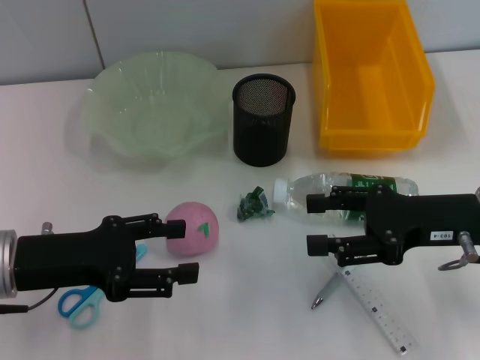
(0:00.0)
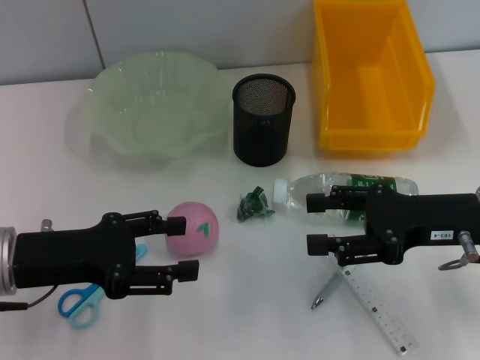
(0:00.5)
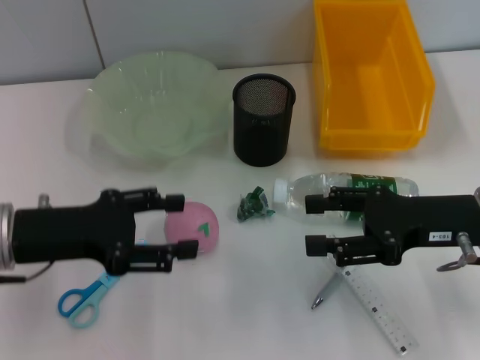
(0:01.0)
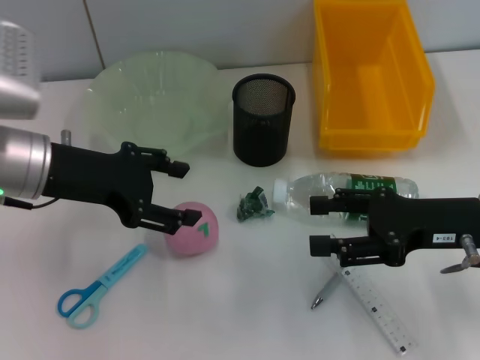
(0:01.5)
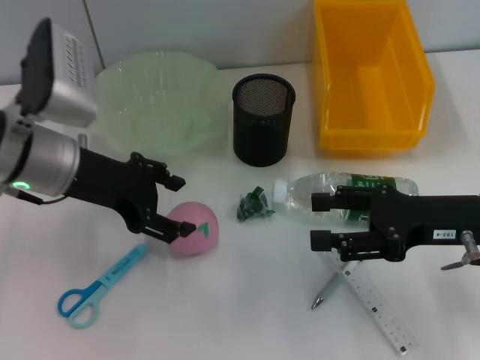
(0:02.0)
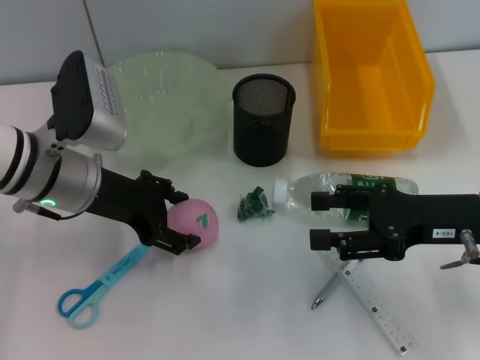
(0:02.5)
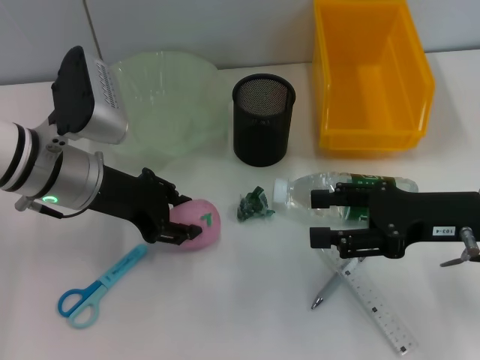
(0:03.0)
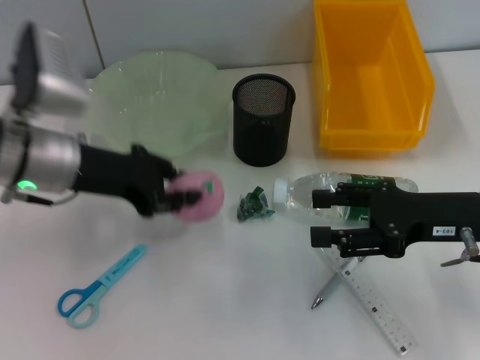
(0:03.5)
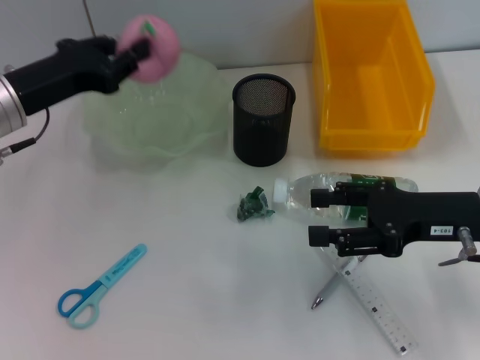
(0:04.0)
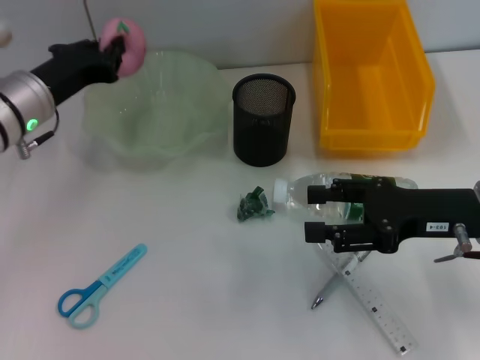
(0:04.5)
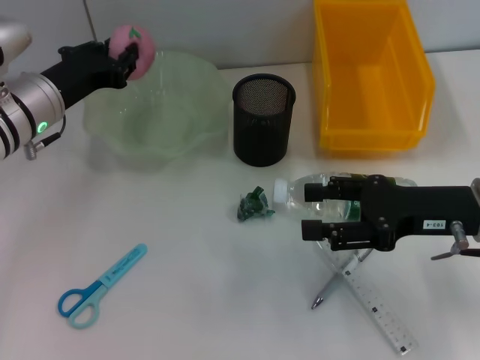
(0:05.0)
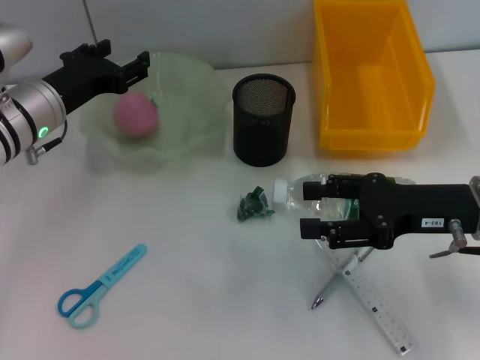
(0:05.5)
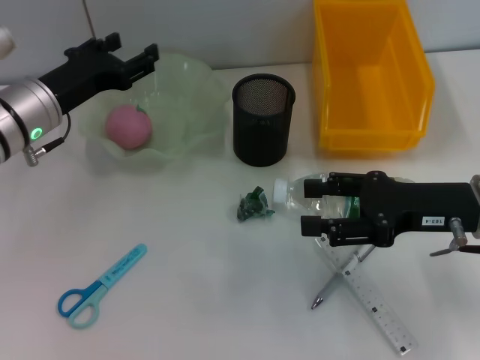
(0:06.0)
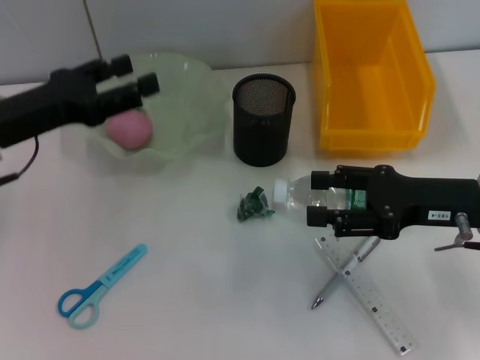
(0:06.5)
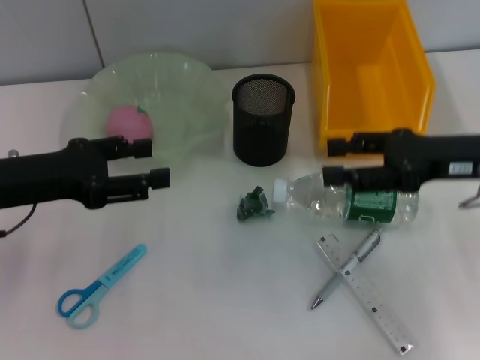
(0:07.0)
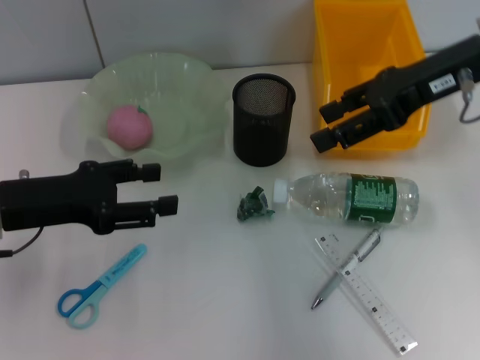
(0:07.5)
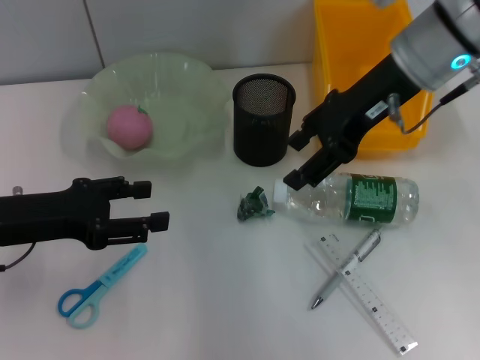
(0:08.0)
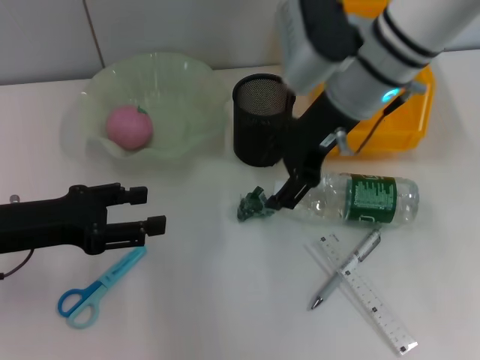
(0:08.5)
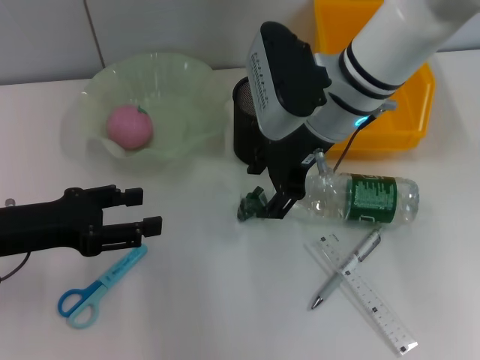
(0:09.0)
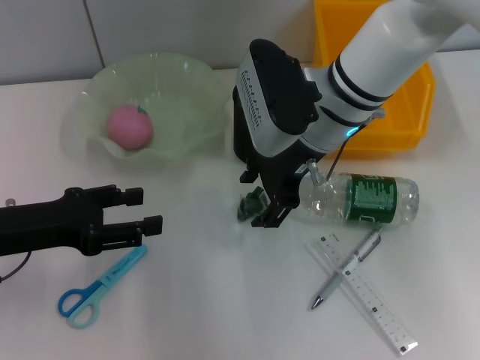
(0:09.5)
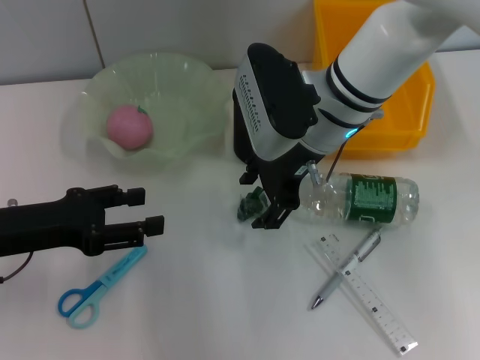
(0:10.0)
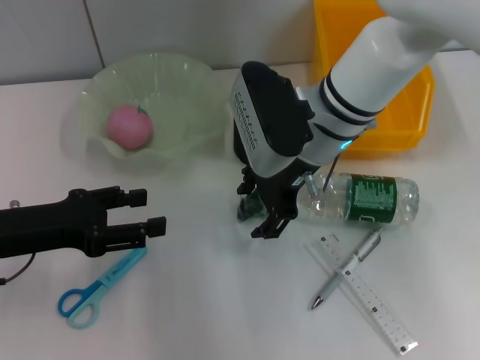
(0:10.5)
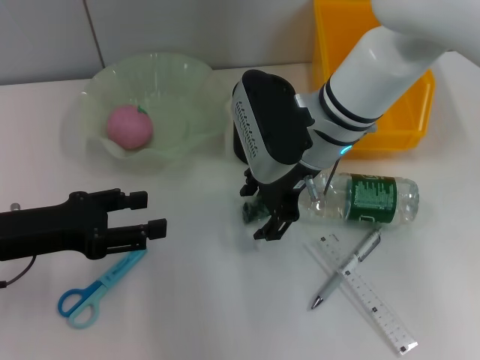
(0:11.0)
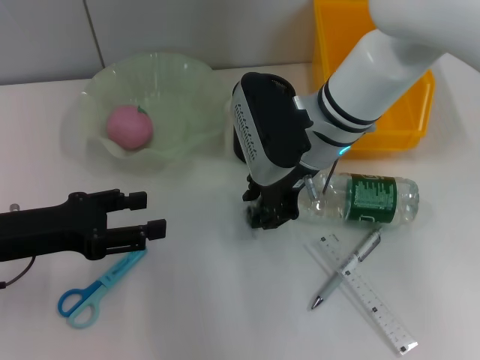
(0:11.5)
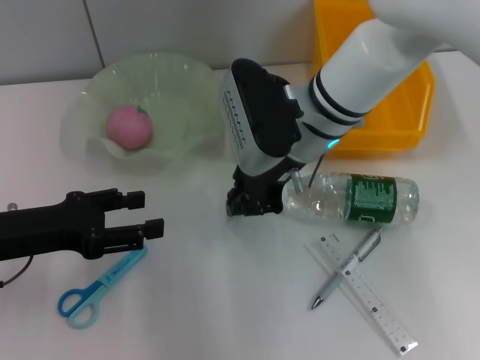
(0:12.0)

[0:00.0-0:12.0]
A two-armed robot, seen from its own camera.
Step, 0:00.0 to 0:03.0: Grab the peach with the left hand.
Step, 0:03.5 to 0:06.0: Place the peach into the fruit bowl with the left hand.
Step, 0:06.5 to 0:11.5: Grab the plastic with the right hand.
0:00.0 to 0:02.0: The left gripper moves forward, to the right and upward, approximately 10 cm.
0:02.0 to 0:04.0: The left gripper moves some 5 cm, and closes its fingers.
0:04.0 to 0:06.0: The left gripper opens its fingers.
0:06.0 to 0:08.0: The right gripper is displaced upward, forward and to the left by about 20 cm. Meanwhile the left gripper is displaced backward by about 10 cm.
0:08.0 to 0:10.0: The right gripper is displaced to the left and downward by about 10 cm.
0:10.0 to 0:12.0: The right gripper closes its fingers.

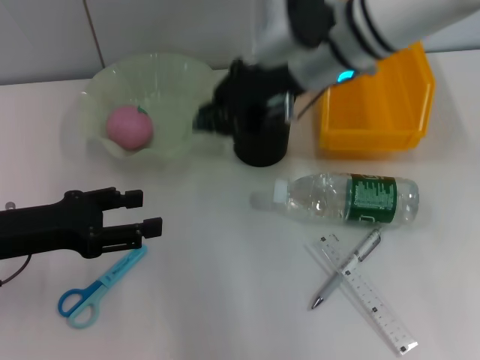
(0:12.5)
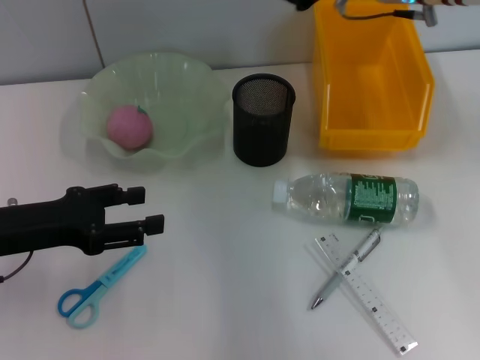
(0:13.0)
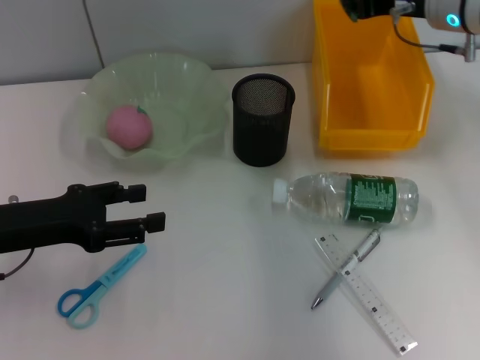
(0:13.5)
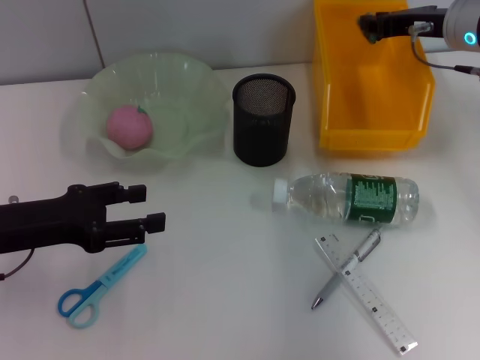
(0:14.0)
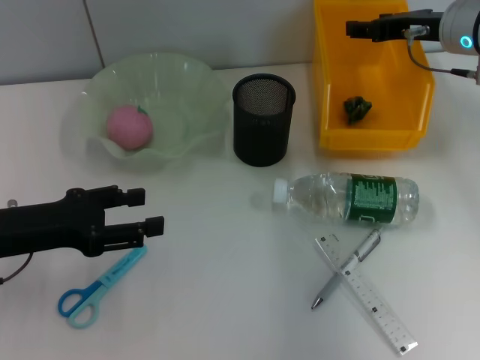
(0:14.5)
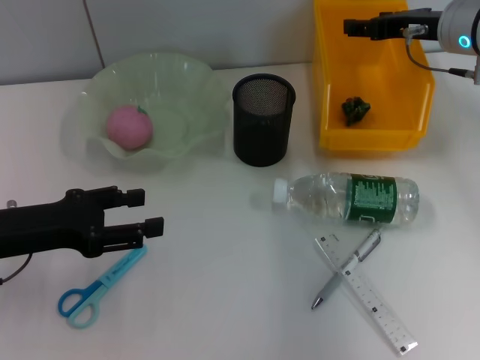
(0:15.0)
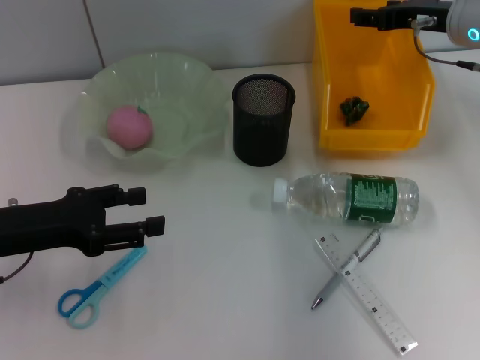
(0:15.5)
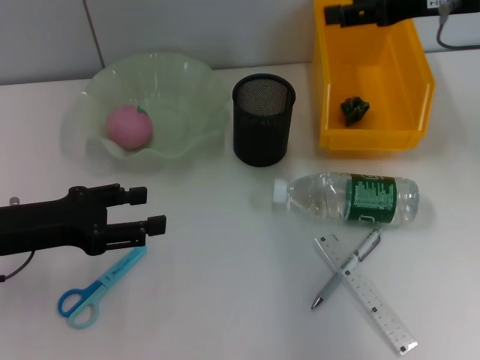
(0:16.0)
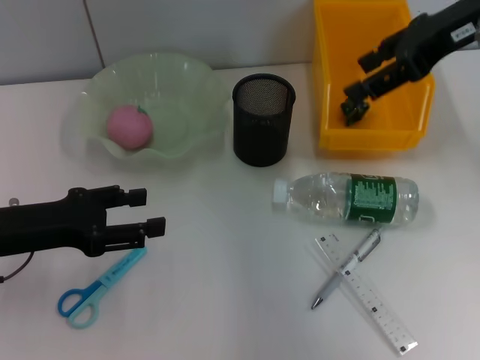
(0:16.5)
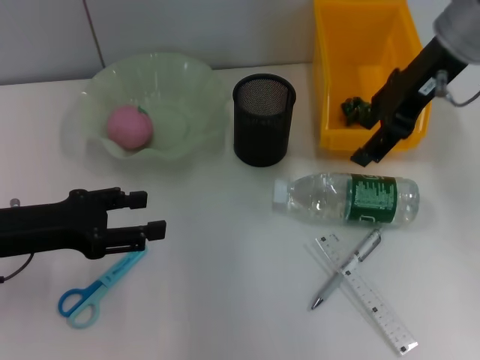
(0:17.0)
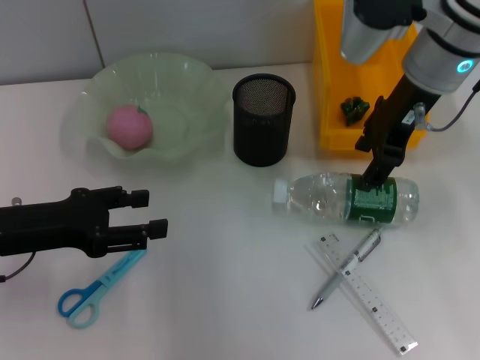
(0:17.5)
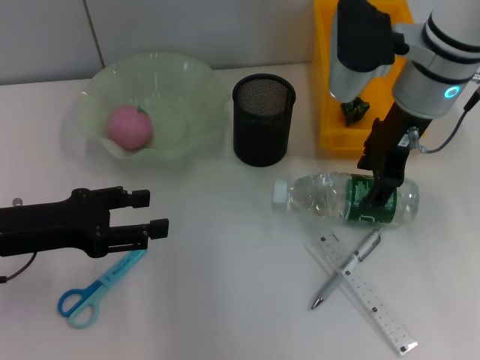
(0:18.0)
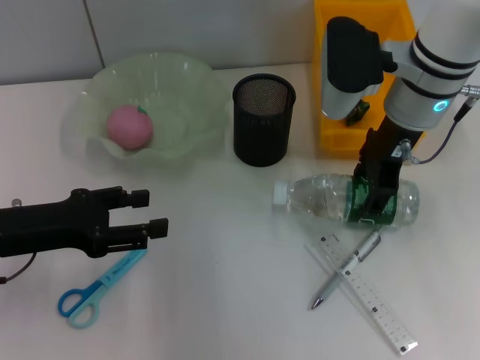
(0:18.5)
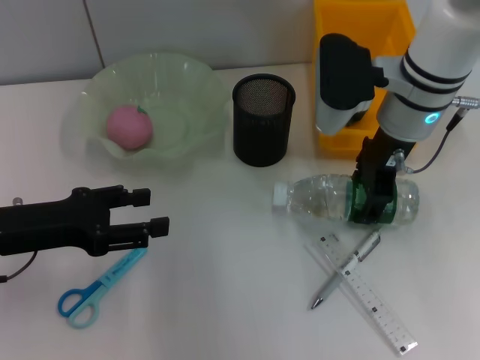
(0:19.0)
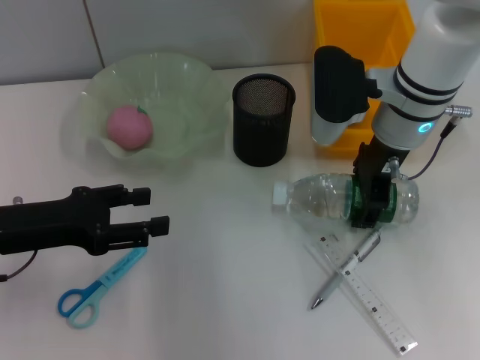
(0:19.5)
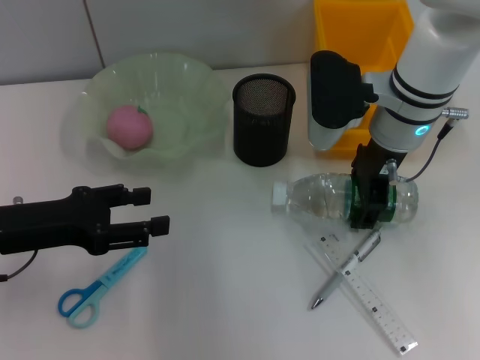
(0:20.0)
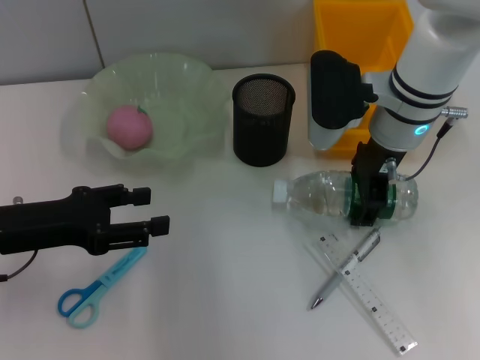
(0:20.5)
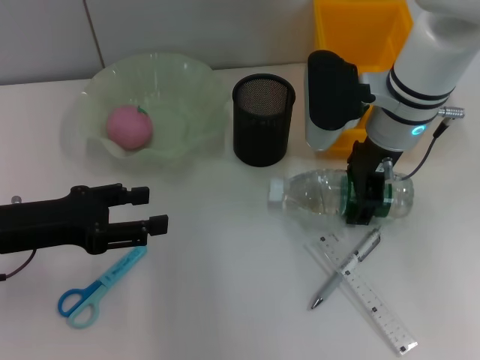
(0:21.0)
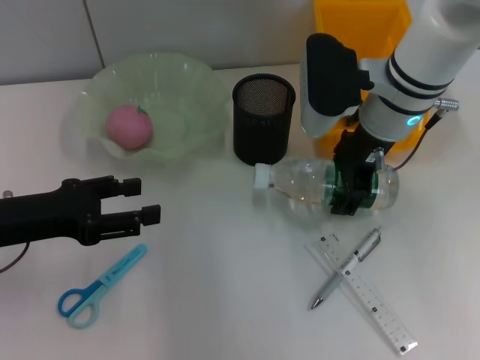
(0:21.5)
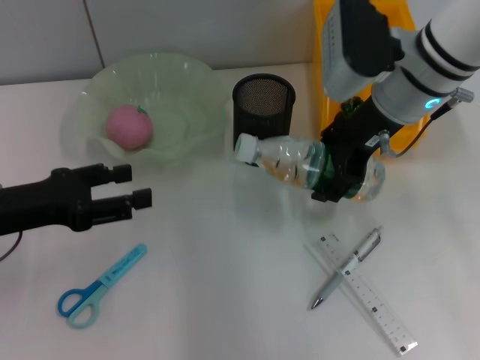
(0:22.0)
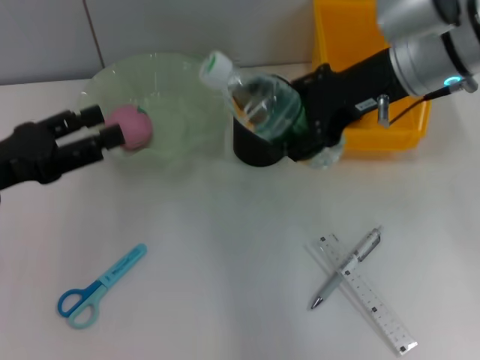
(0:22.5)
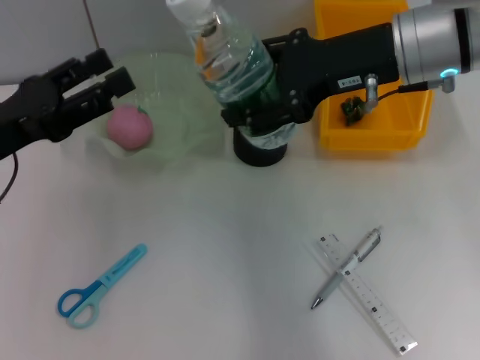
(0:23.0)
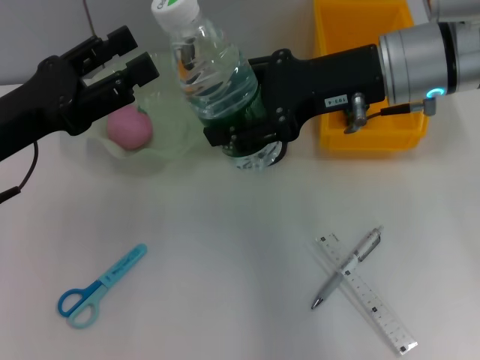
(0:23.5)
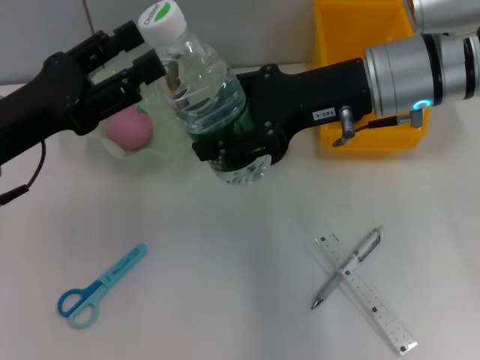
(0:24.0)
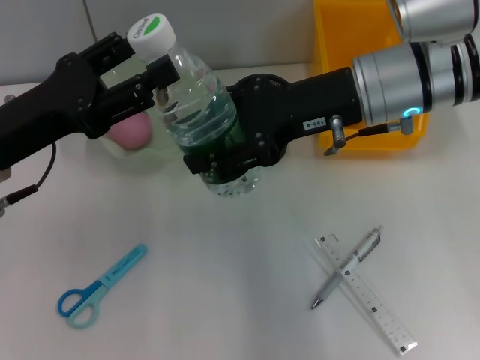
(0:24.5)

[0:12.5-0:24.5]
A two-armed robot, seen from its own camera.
Step, 0:12.5 to 0:14.5: Place the plastic into the trash can with the right hand.
Step, 0:15.0 to 0:20.5: Grab the water bottle with the right hand.
0:12.5 to 0:14.5: The right gripper goes some 15 cm to the right, and opens up.
0:14.5 to 0:16.5: The right gripper moves upward, about 10 cm.
0:16.5 to 0:18.5: The right gripper travels downward and to the left by about 15 cm.
0:18.5 to 0:20.5: The grippers move only a little.
0:20.5 to 0:22.5: The right gripper shifts some 5 cm upward.
0:22.5 to 0:24.5: The left gripper heads to the right, covering roughly 5 cm.

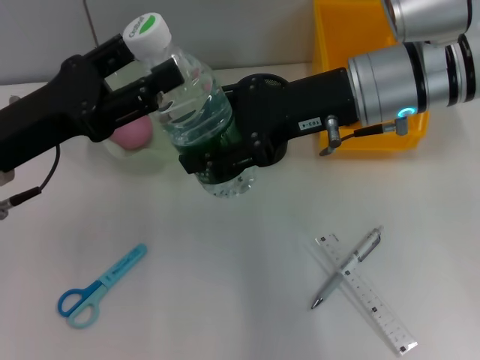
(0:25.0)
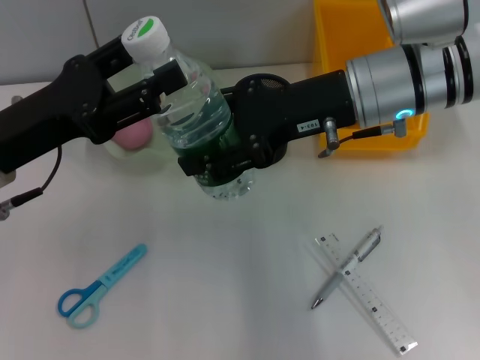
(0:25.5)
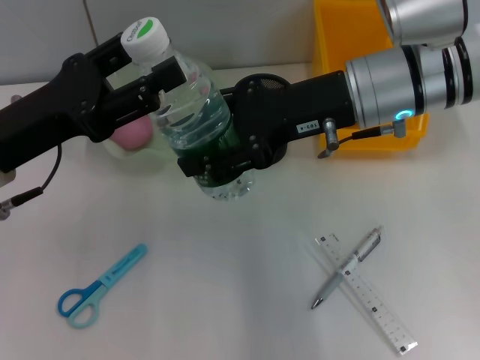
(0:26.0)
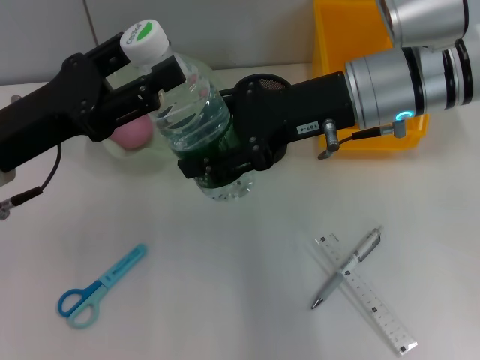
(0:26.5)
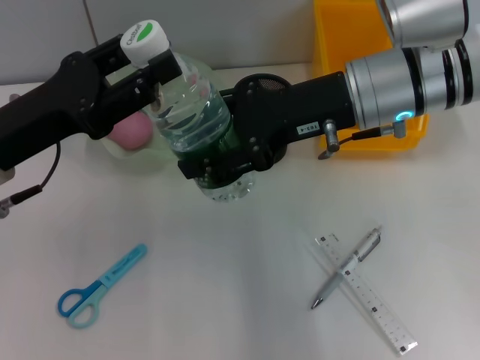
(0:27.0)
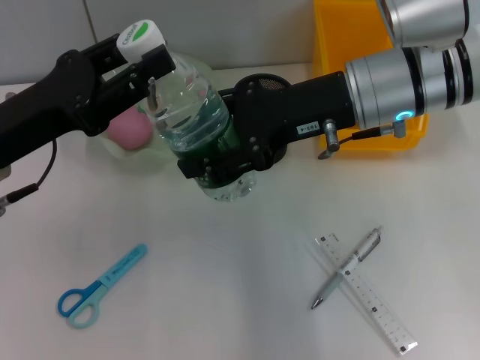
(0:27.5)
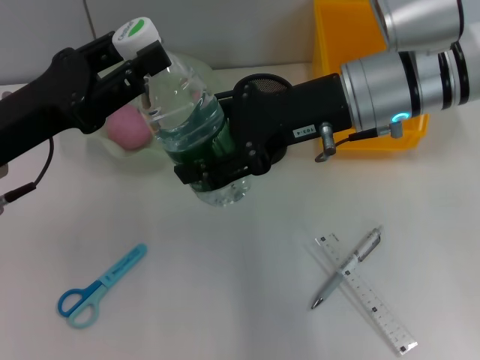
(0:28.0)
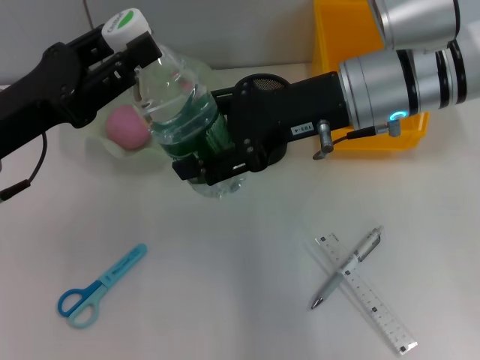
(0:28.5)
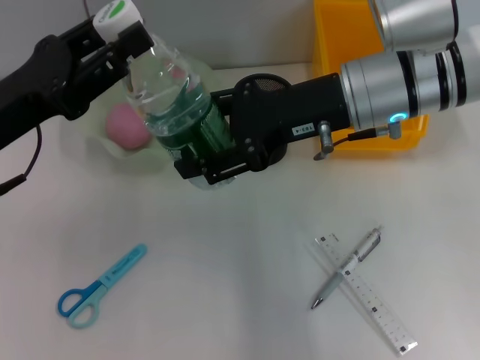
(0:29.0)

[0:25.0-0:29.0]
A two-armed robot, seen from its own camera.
0:25.0 to 0:29.0: Both grippers stay put.
